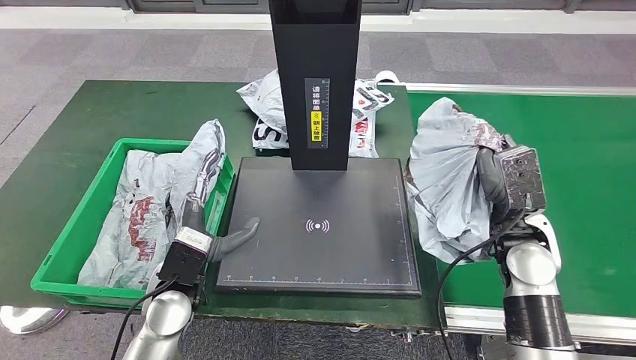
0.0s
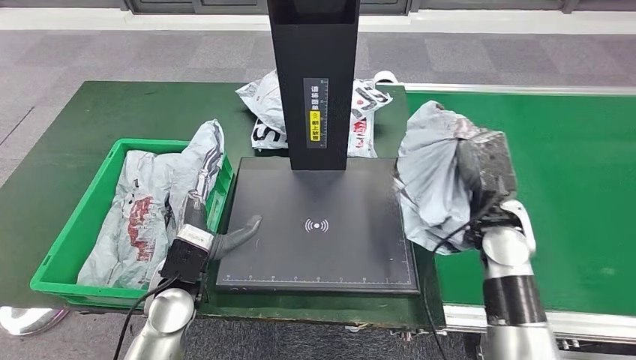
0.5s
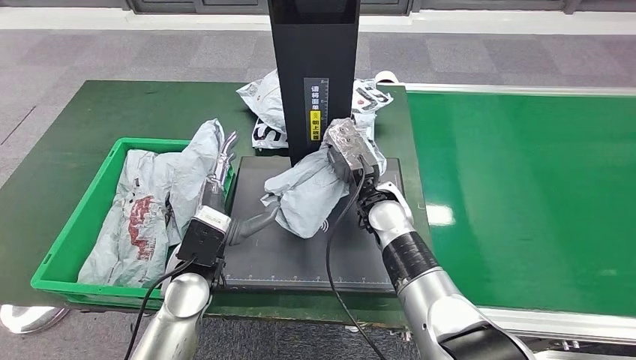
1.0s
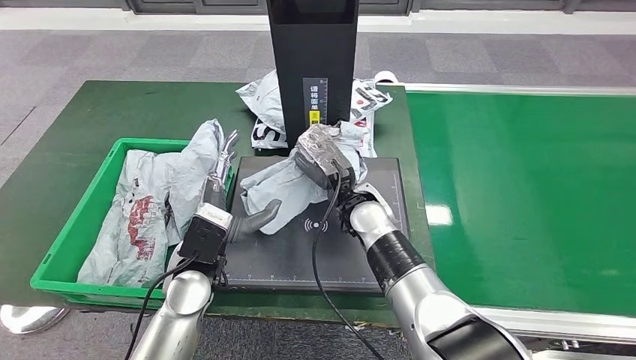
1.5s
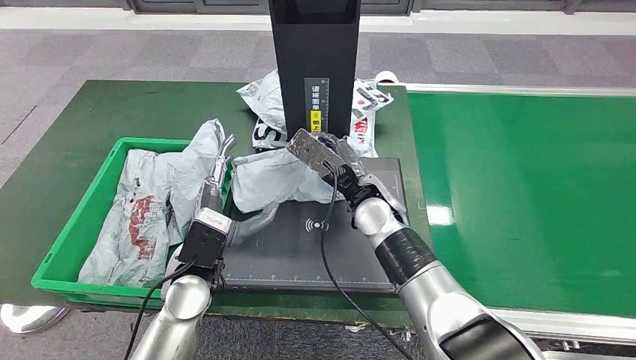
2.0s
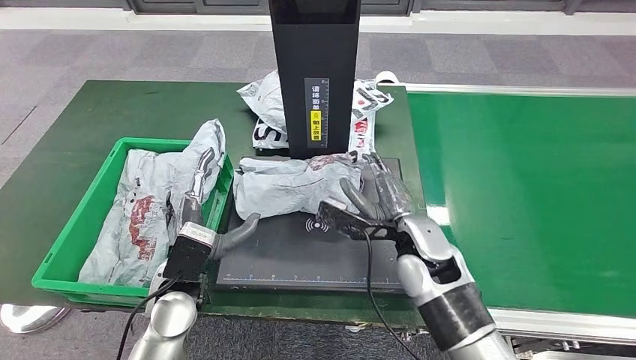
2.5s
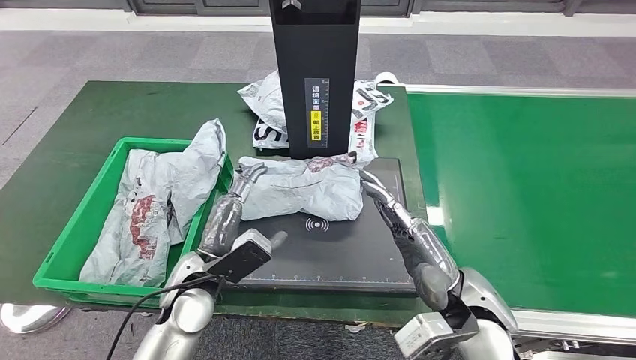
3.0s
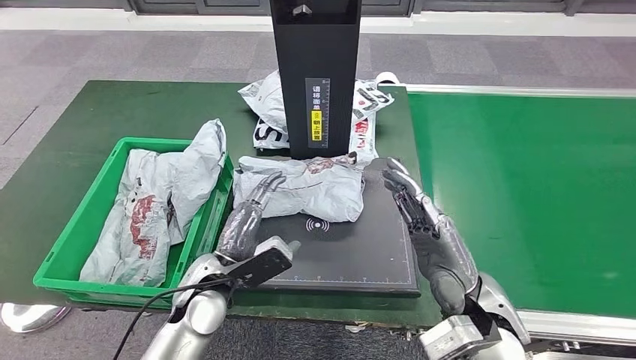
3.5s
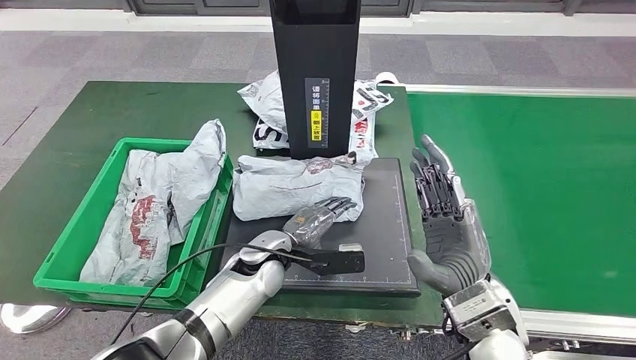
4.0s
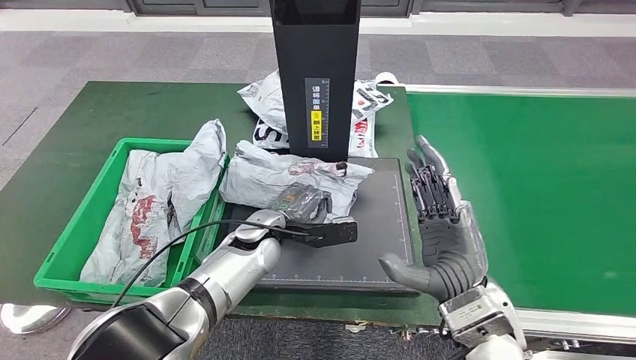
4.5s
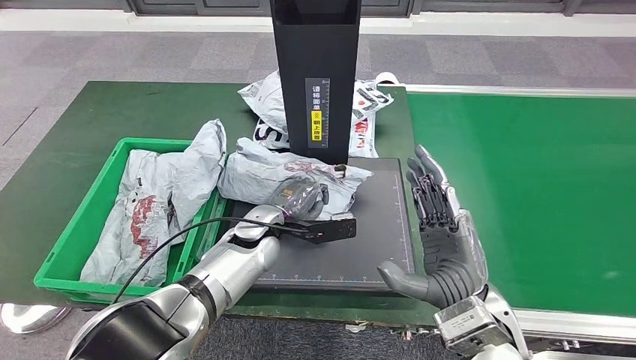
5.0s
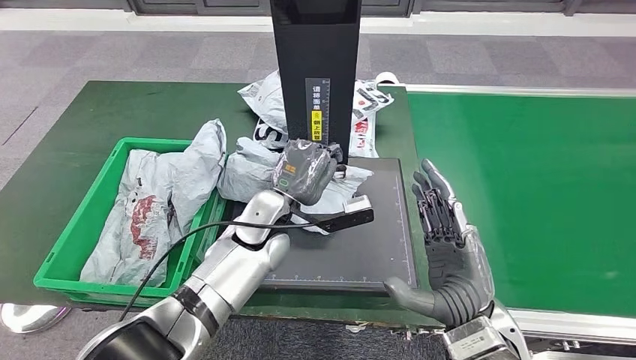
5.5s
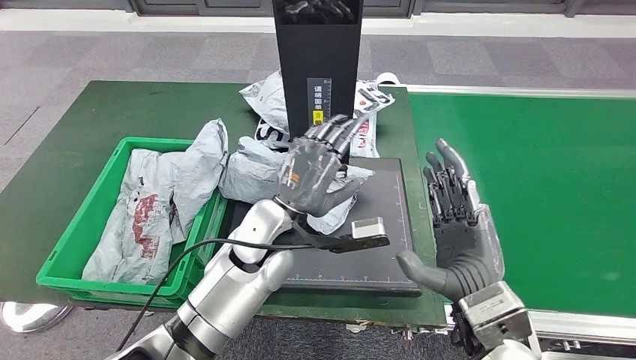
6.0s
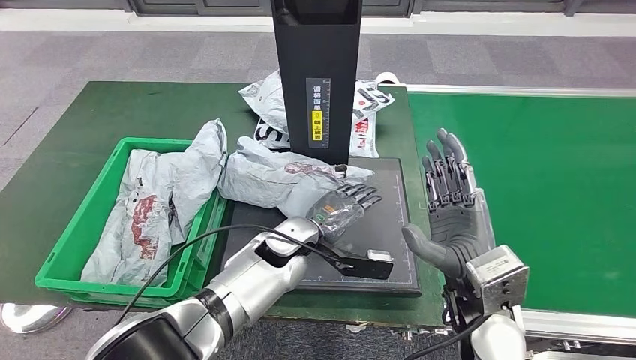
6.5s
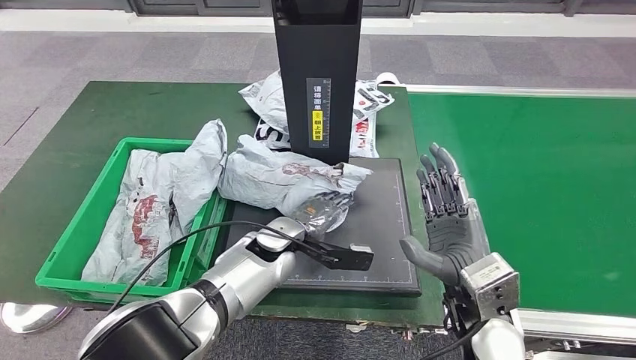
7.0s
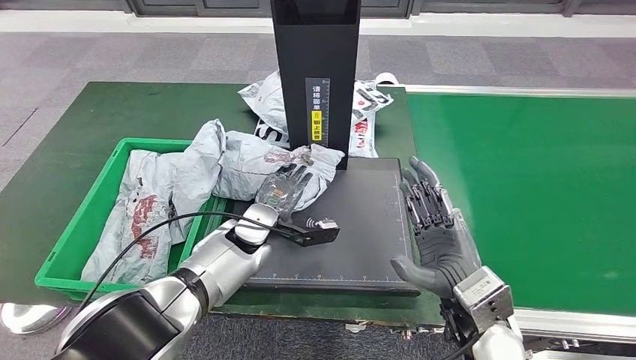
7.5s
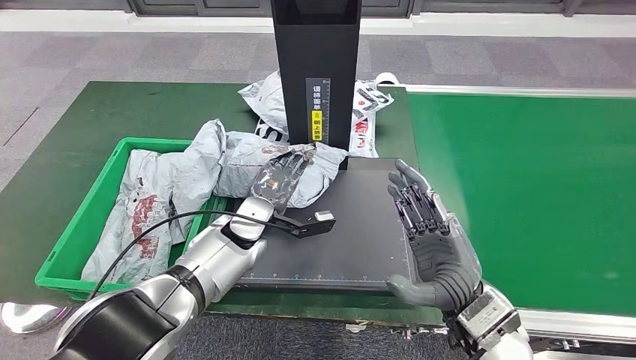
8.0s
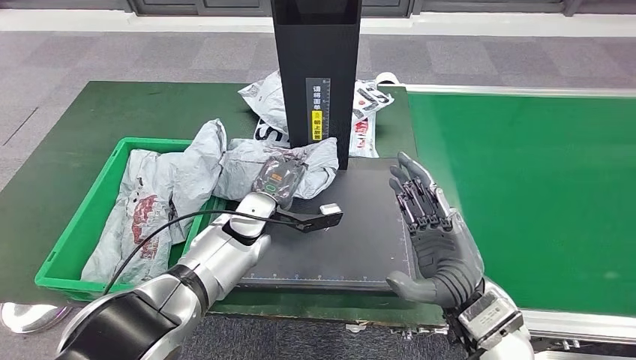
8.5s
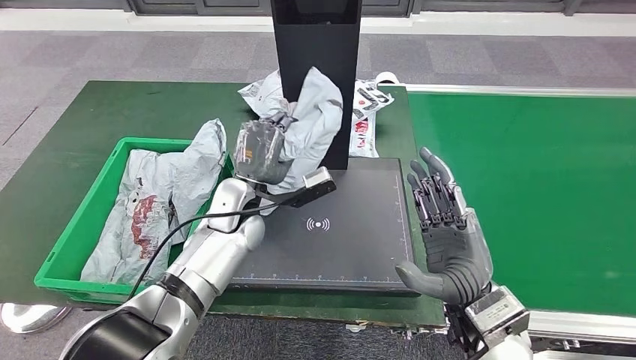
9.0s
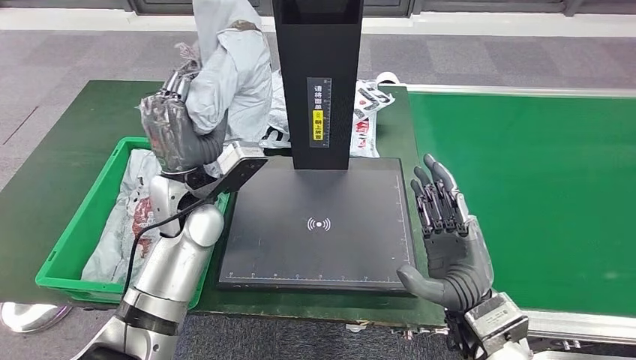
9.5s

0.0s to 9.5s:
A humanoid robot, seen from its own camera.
Step, 0.0s to 3.0s: Place the parcel onto the inbound machine.
Step, 3.5s to 8.5s: Pick up the parcel from the inbound machine.
4.0s to 5.5s: The left hand moves upward, approximately 5 cm.
5.5s to 7.5s: The left hand travels downward by approximately 5 cm.

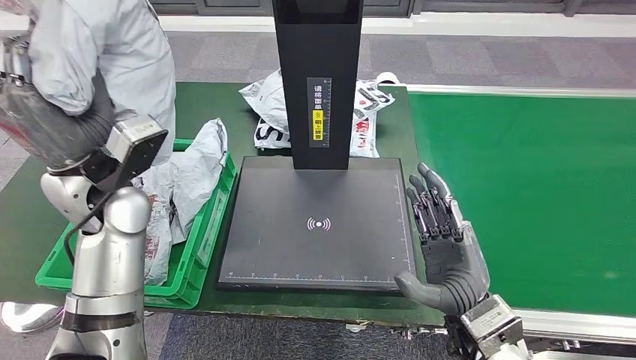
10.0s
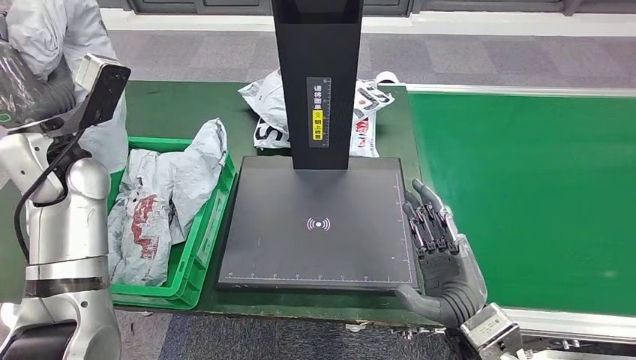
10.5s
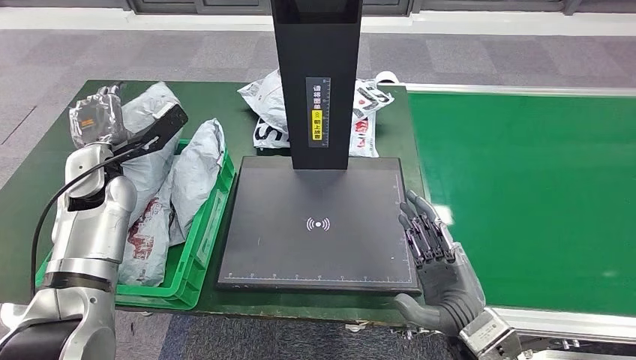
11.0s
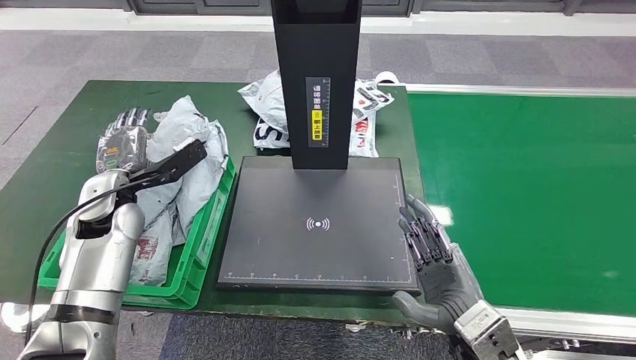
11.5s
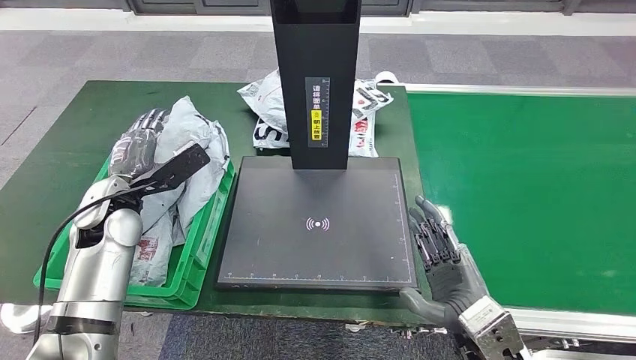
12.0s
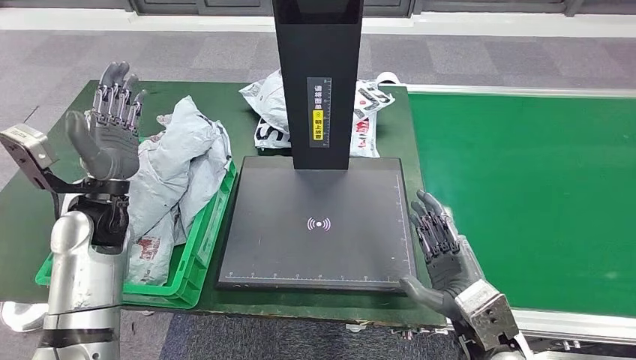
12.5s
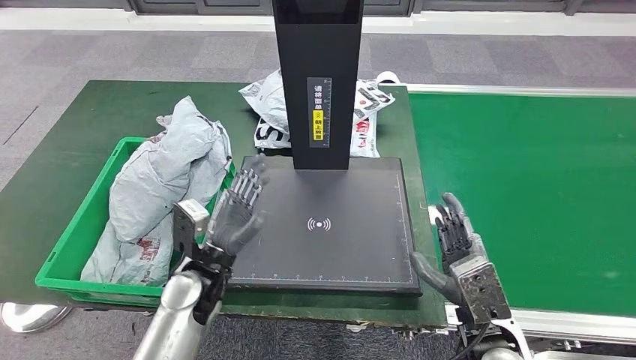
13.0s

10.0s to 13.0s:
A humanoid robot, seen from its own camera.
Step, 10.0s to 13.0s: Place the parcel into the delivery box.
11.5s to 13.0s: The left hand goes about 20 cm to the right, backward and downward.
